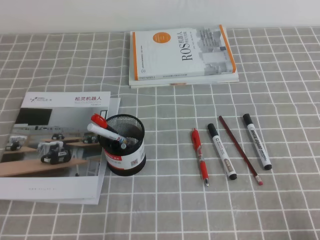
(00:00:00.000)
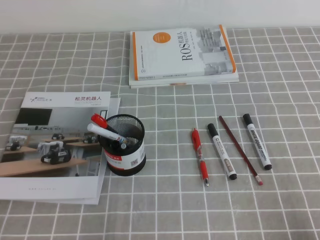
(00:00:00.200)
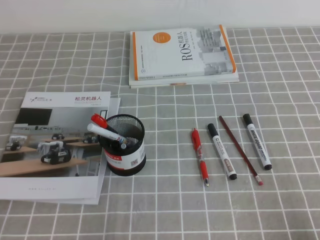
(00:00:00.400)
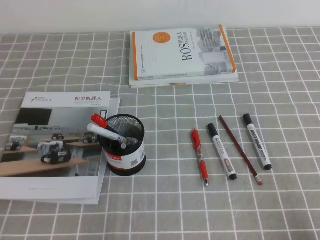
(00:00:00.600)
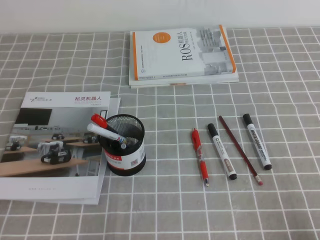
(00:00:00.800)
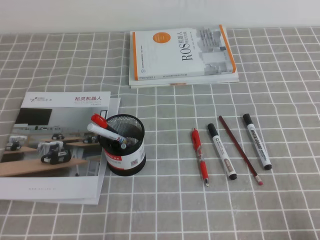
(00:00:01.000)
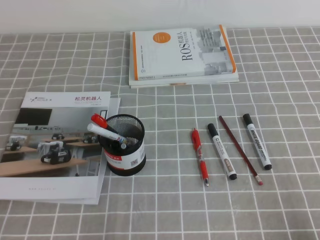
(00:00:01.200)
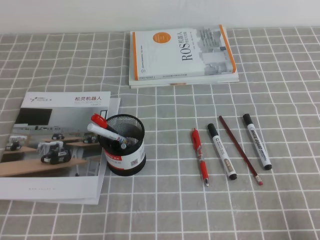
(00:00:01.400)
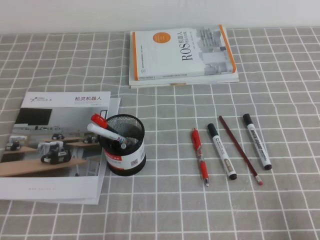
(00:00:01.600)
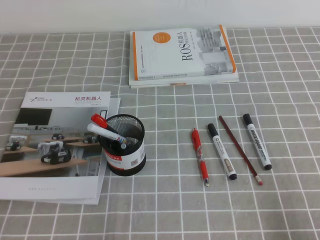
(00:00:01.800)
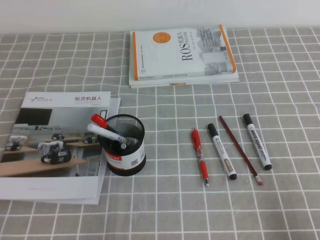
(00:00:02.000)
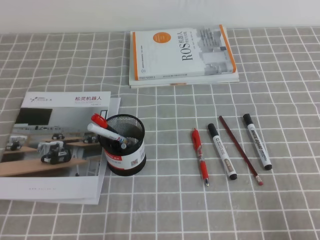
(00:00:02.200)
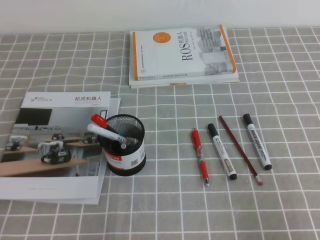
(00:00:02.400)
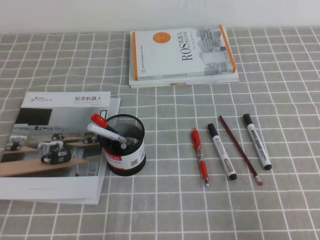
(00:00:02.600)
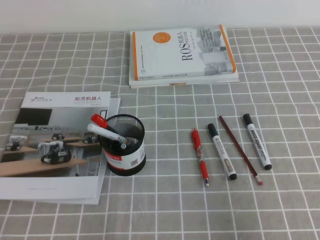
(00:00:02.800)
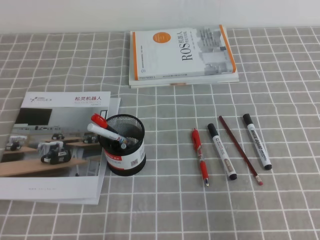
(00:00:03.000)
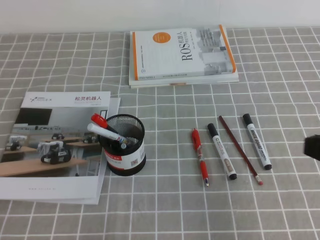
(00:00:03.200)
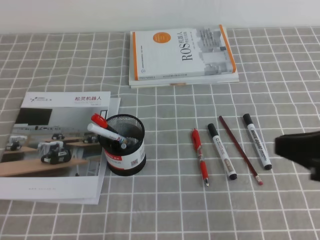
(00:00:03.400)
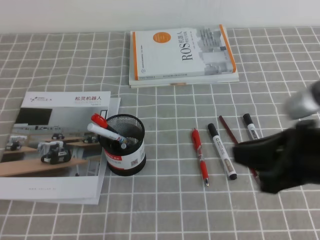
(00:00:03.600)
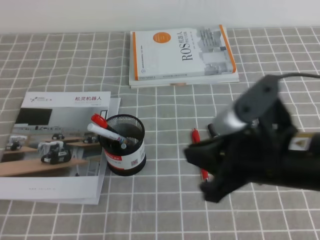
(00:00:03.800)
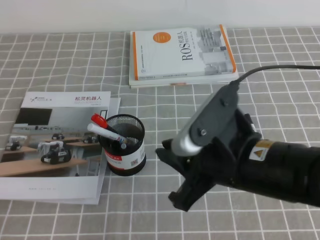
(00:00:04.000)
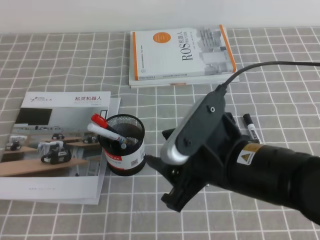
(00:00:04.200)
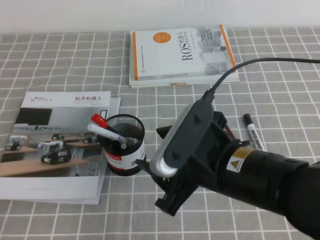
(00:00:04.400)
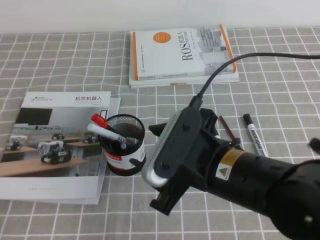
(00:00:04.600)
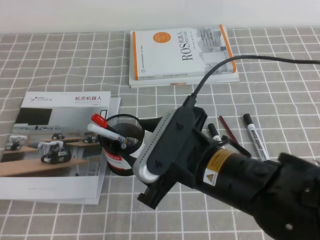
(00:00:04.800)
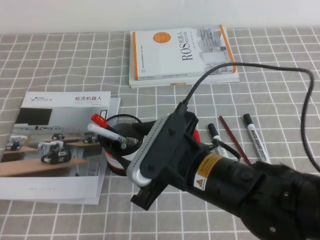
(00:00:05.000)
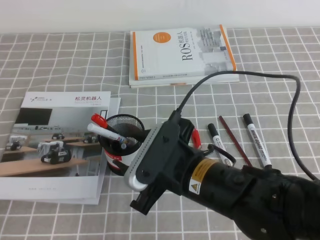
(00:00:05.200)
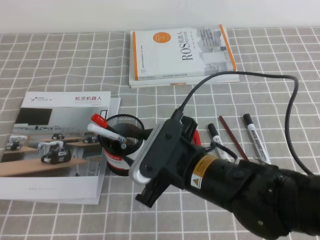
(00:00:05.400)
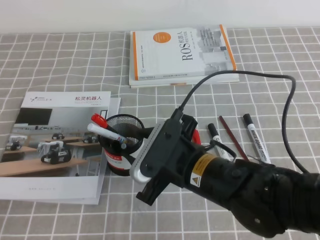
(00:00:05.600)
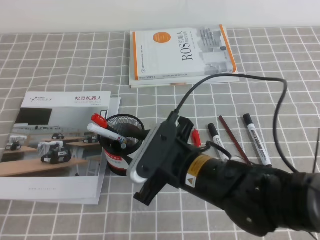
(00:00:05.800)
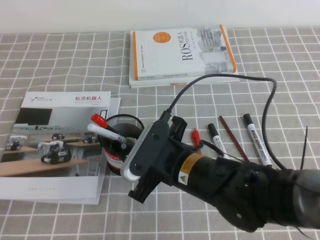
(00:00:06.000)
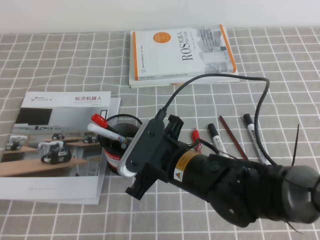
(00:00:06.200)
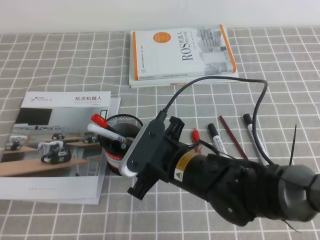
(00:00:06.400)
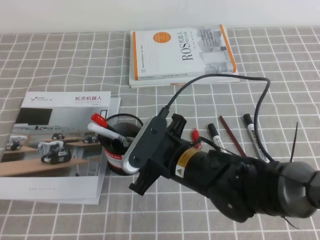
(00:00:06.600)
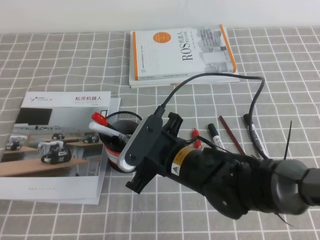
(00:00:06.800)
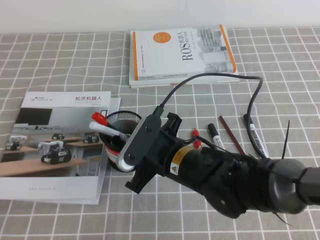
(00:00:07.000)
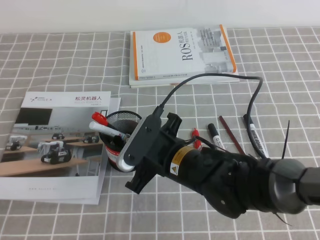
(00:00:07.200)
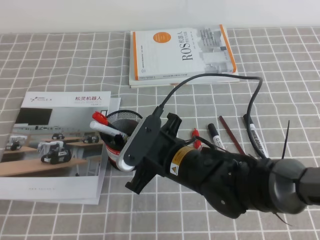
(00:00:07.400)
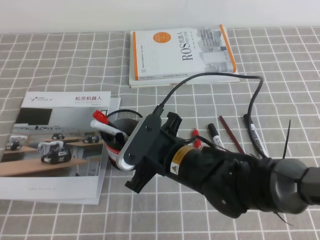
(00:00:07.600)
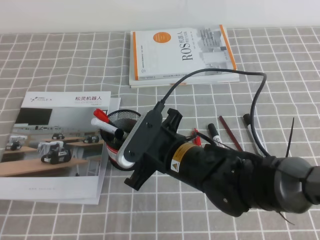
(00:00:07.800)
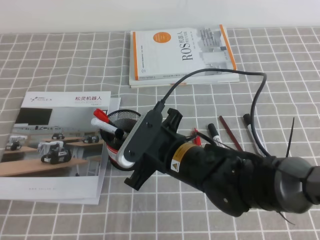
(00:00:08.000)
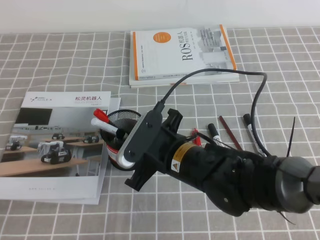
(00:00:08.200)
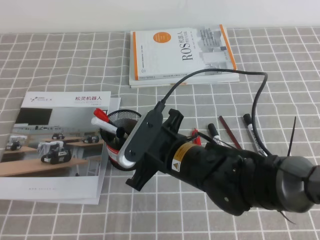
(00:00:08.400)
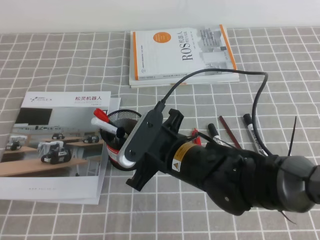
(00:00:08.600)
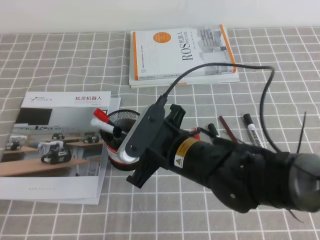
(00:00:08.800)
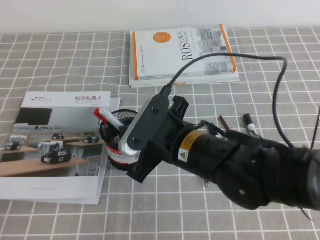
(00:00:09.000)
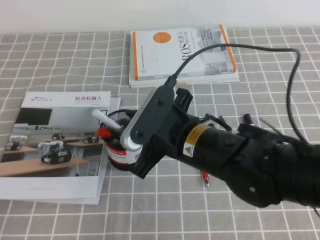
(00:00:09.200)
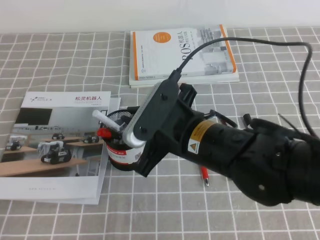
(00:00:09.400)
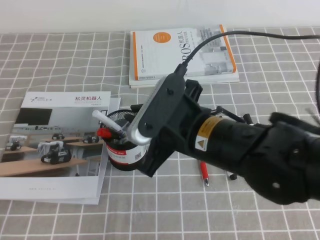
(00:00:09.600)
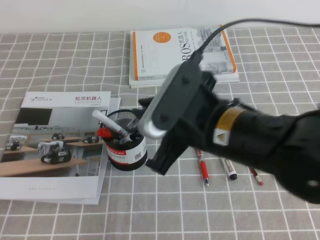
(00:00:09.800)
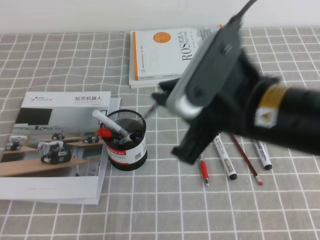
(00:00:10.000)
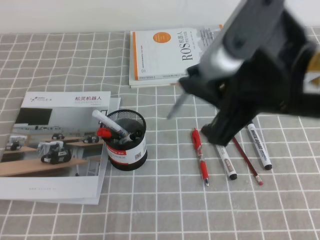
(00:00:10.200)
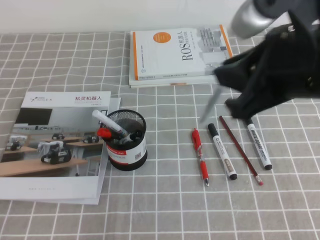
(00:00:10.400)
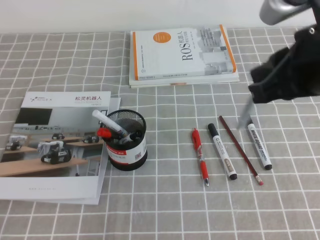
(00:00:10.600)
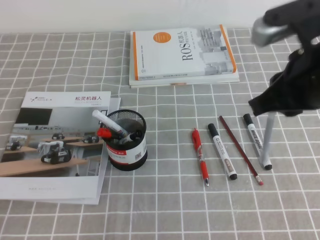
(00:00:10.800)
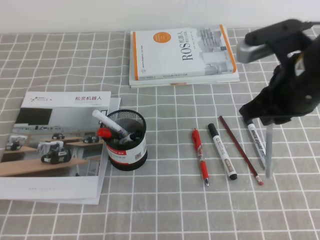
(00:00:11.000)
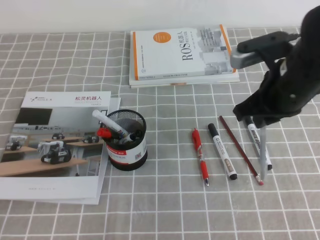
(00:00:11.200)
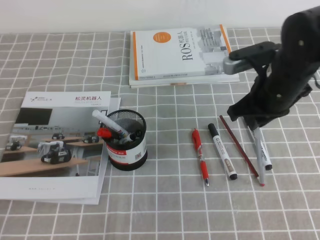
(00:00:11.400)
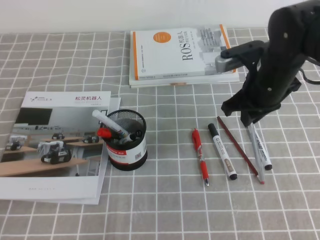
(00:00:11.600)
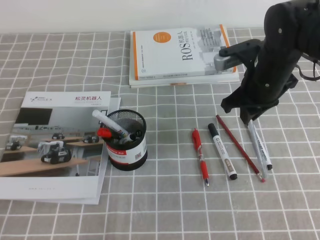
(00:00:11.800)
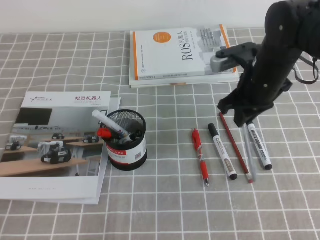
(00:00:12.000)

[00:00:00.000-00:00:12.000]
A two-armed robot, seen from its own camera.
00:00:01.600 to 00:00:03.000: The right gripper moves upward, some 15 cm.
00:00:03.000 to 00:00:04.400: The right gripper heads to the left, covering approximately 20 cm, and opens up.
00:00:04.400 to 00:00:06.000: The right gripper travels downward and to the left by some 10 cm.
00:00:06.000 to 00:00:07.600: The right gripper closes its fingers.
00:00:07.600 to 00:00:09.000: The grippers move only a little.
00:00:09.000 to 00:00:10.400: The right gripper moves upward and to the right, approximately 20 cm.
00:00:10.400 to 00:00:12.000: The right gripper travels forward and downward by about 25 cm.

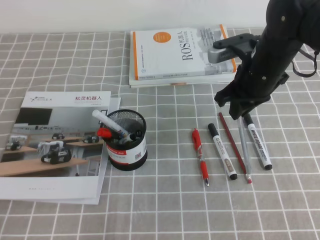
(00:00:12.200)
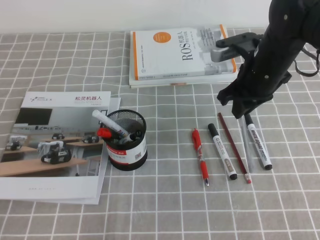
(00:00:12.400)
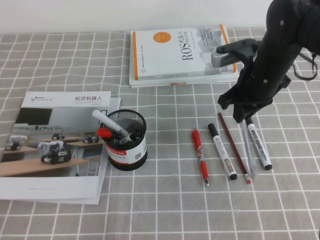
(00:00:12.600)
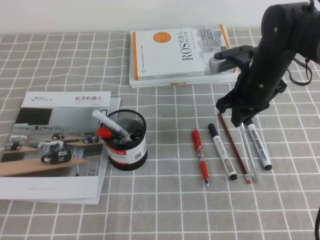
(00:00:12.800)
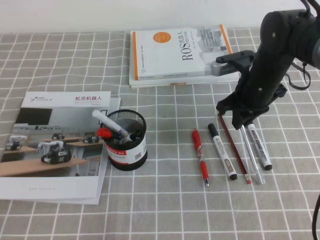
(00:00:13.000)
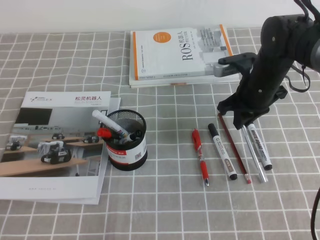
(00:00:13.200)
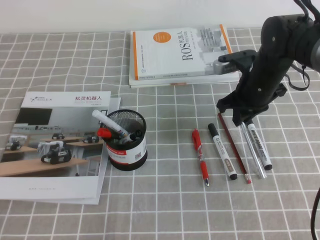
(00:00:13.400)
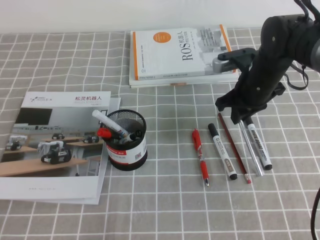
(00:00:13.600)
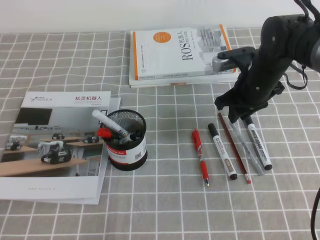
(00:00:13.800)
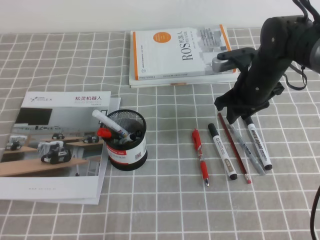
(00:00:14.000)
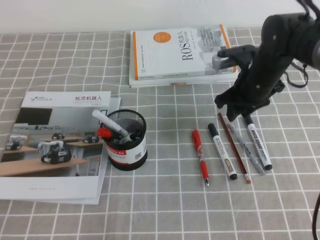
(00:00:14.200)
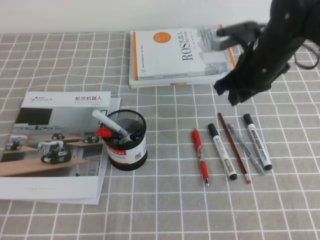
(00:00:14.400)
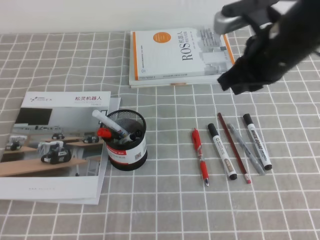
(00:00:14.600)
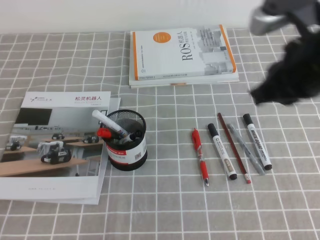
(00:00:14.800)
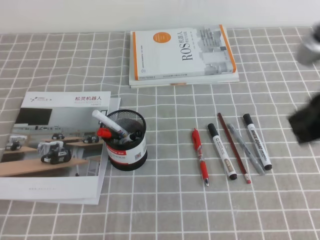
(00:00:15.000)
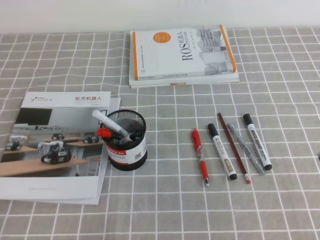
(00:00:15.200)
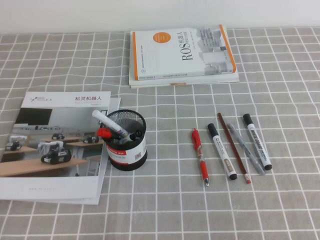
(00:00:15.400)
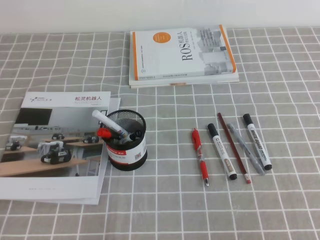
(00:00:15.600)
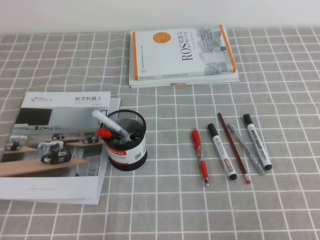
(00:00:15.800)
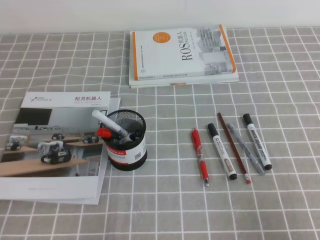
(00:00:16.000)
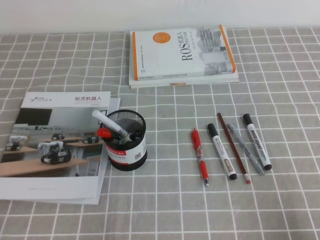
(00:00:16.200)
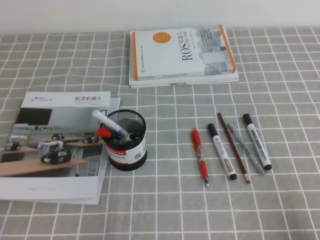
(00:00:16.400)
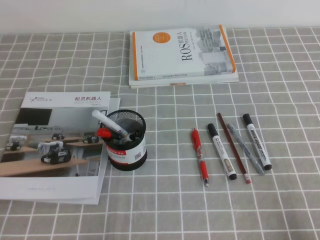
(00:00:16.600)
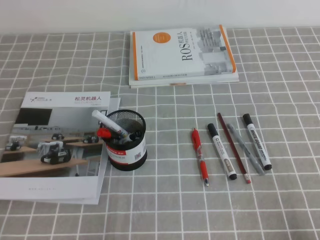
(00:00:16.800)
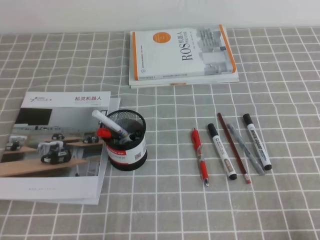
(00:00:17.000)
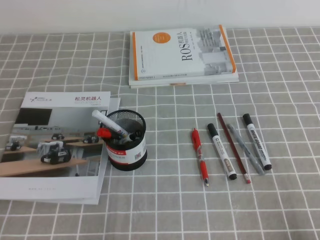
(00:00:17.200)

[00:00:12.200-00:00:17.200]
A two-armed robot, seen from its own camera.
Step, 00:00:12.200 to 00:00:17.200: Pick up the pen from the pen holder.
00:00:12.200 to 00:00:13.800: The right gripper goes about 5 cm downward.
00:00:13.800 to 00:00:15.600: The right gripper travels backward by approximately 35 cm.
00:00:15.600 to 00:00:17.200: The right gripper moves downward, roughly 15 cm.
